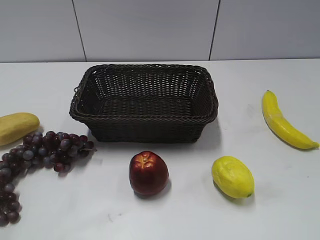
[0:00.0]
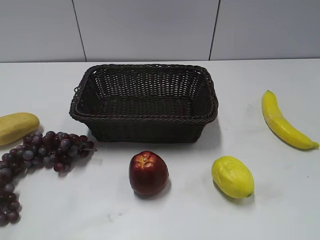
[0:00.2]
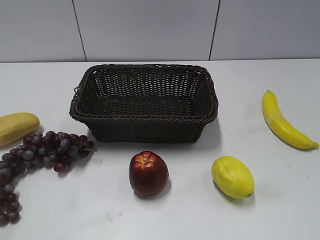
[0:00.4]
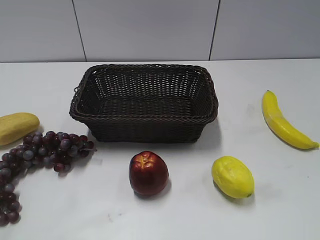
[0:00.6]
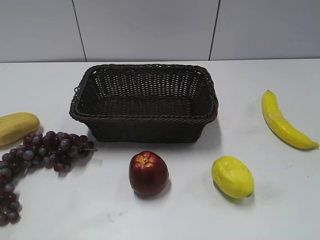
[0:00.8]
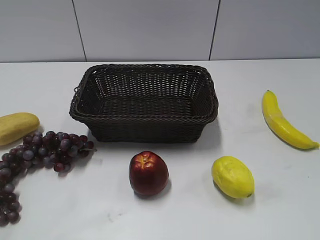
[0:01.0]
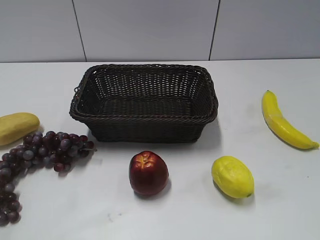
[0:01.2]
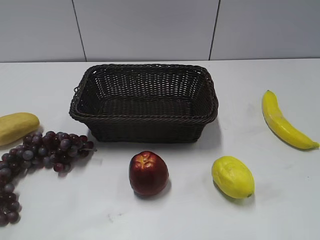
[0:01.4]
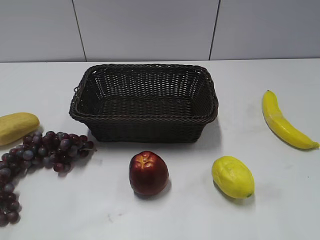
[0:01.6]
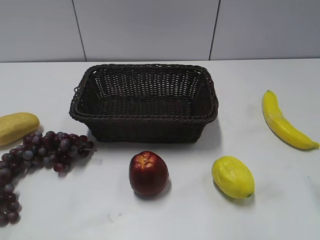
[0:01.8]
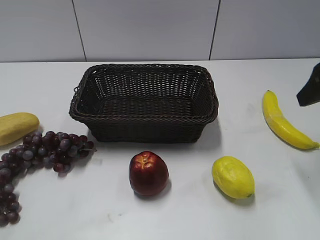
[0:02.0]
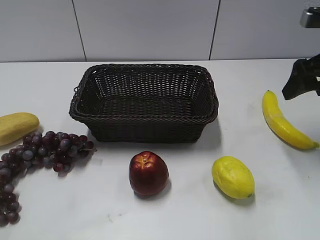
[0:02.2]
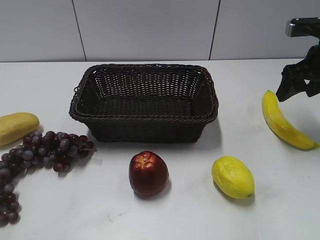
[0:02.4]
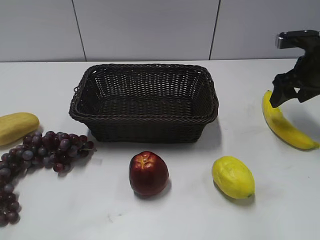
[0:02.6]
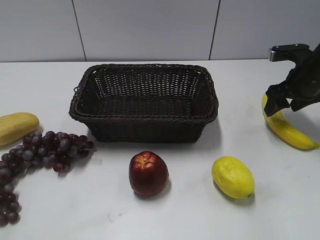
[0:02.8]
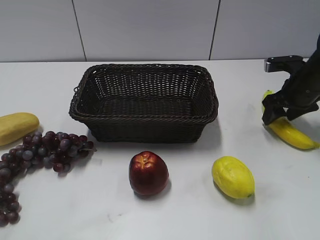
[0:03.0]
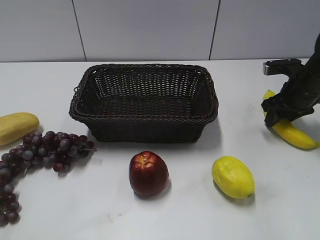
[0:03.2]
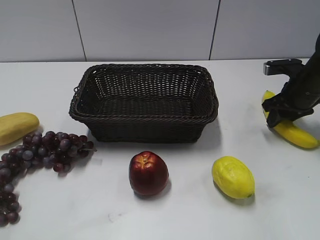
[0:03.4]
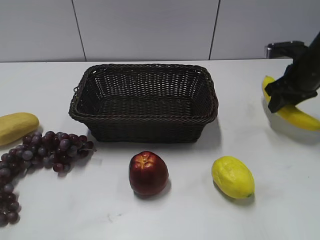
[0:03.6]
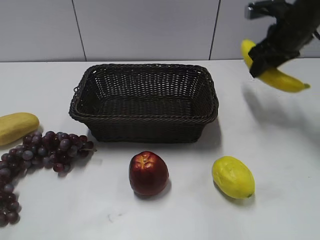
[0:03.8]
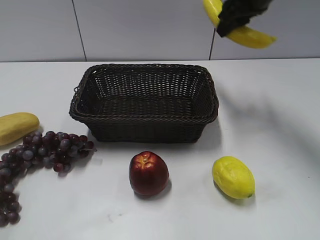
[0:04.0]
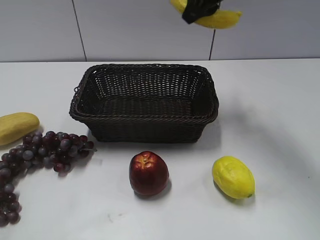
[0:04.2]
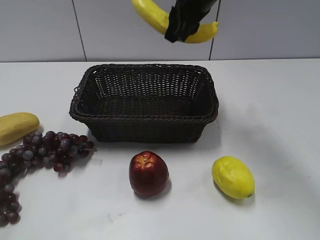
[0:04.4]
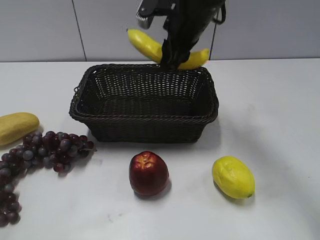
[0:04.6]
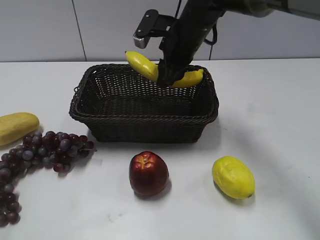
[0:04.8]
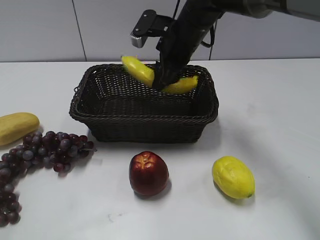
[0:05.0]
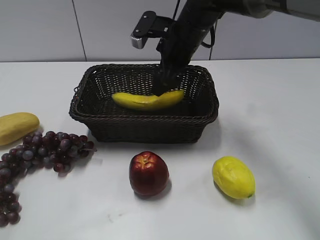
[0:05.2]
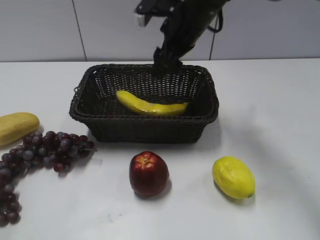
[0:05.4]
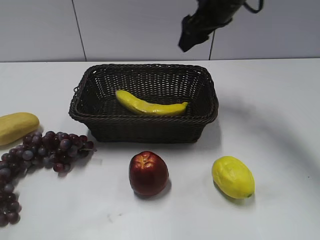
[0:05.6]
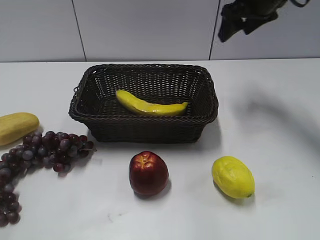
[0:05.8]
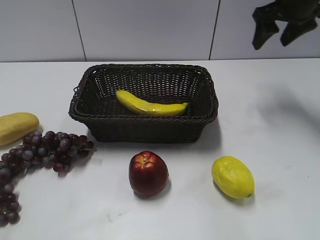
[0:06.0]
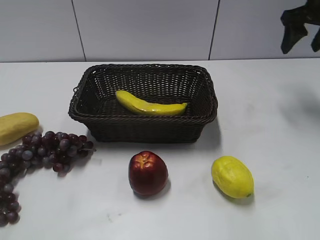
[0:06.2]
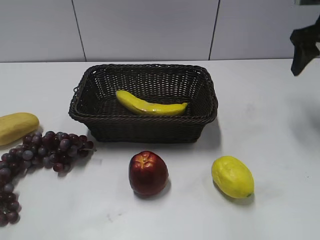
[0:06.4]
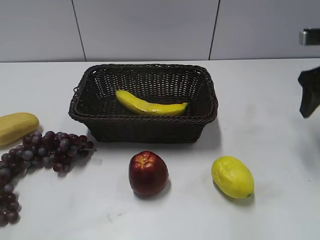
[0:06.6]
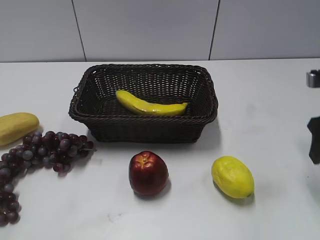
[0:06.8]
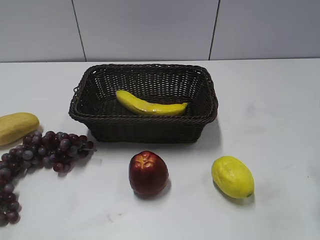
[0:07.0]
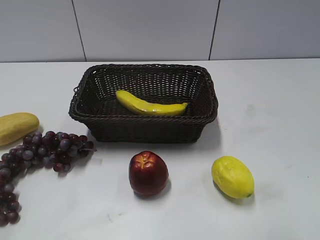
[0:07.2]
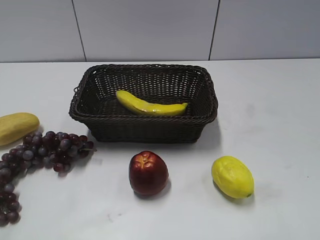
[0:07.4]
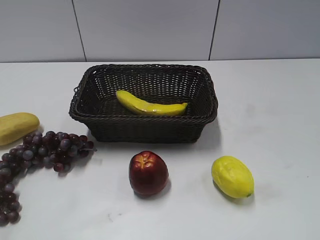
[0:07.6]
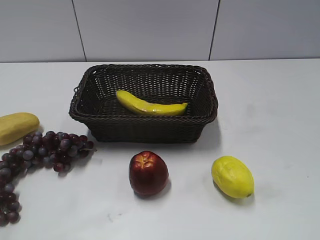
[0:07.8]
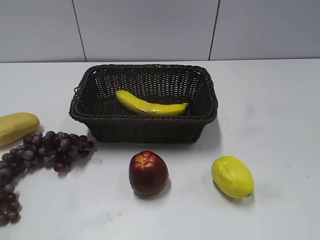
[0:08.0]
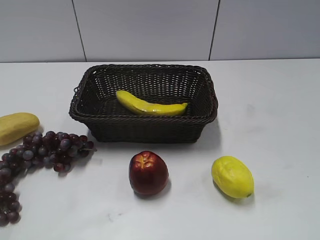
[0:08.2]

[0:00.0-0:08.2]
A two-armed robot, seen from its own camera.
Step, 0:02.0 to 0:03.2: Grasp the banana with right gripper.
Step, 0:03.4 to 0:05.2: Place the banana in the basket with right gripper.
0:01.6 to 0:03.2: The right gripper is displaced forward and downward by some 30 cm, and closes.
0:03.2 to 0:05.0: The right gripper goes about 25 cm to the left, and opens.
0:05.0 to 0:06.6: The right gripper travels to the right by approximately 25 cm, and opens.
0:06.6 to 0:08.2: The right gripper shifts about 35 cm backward.

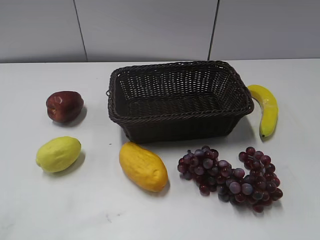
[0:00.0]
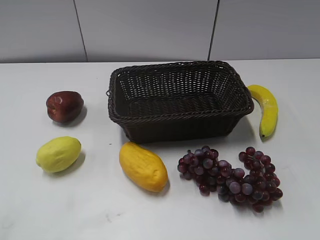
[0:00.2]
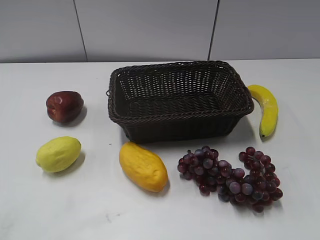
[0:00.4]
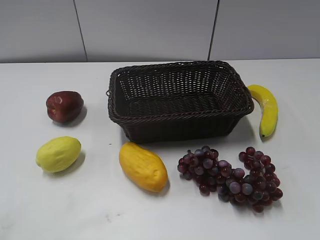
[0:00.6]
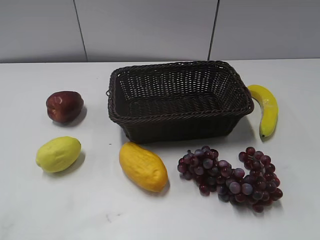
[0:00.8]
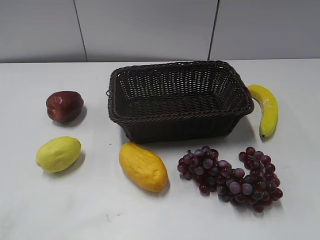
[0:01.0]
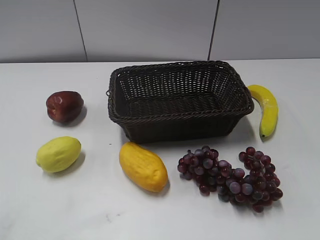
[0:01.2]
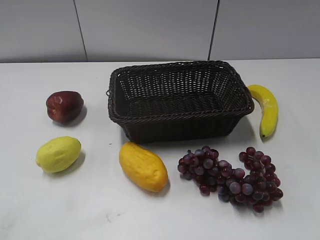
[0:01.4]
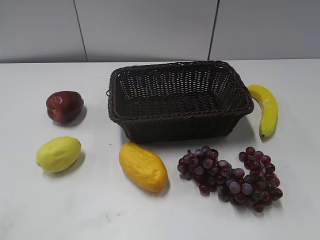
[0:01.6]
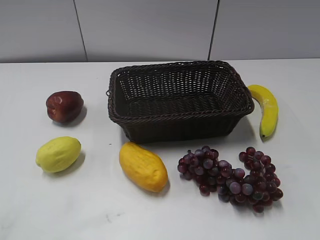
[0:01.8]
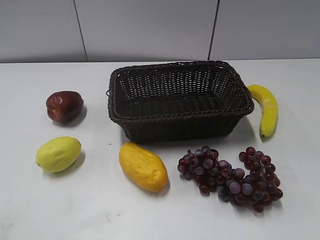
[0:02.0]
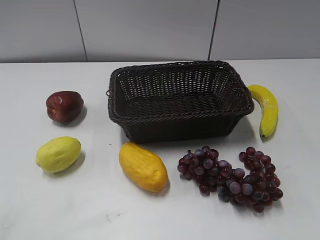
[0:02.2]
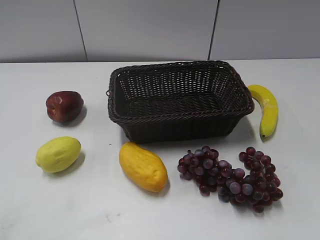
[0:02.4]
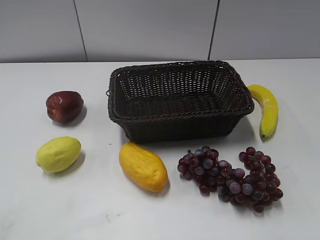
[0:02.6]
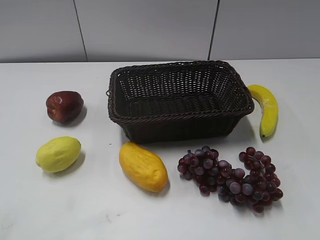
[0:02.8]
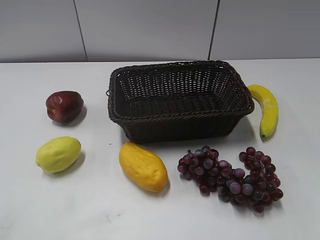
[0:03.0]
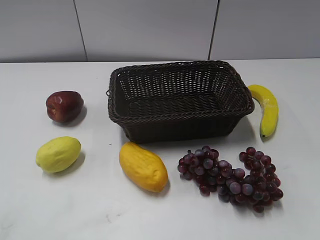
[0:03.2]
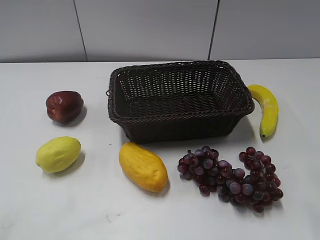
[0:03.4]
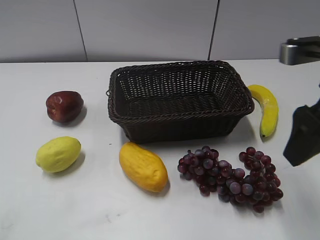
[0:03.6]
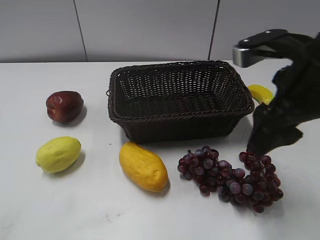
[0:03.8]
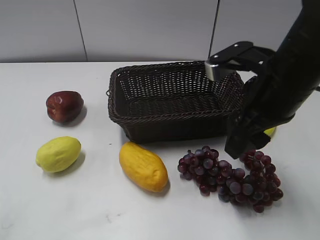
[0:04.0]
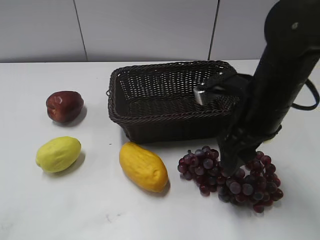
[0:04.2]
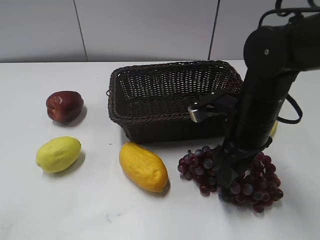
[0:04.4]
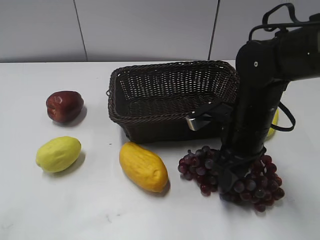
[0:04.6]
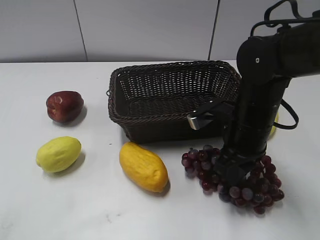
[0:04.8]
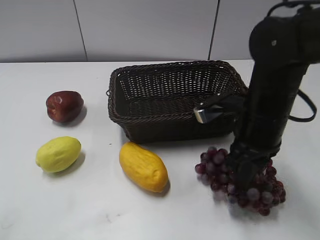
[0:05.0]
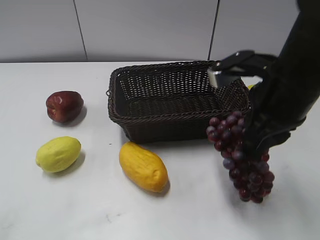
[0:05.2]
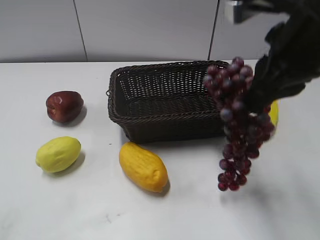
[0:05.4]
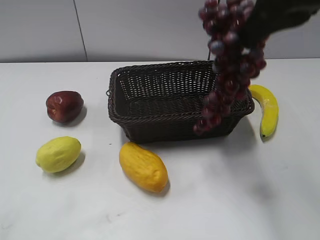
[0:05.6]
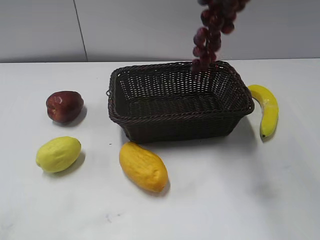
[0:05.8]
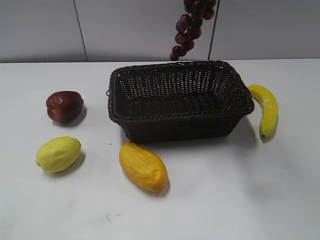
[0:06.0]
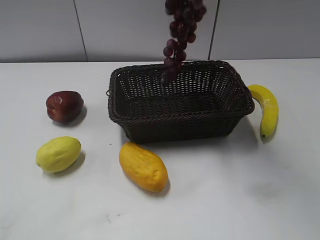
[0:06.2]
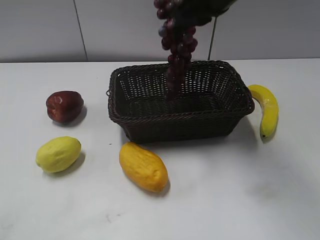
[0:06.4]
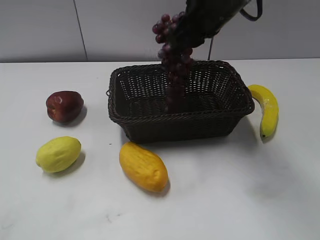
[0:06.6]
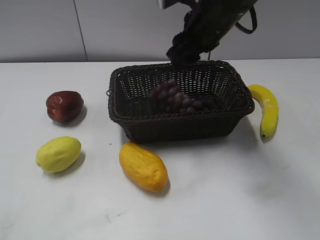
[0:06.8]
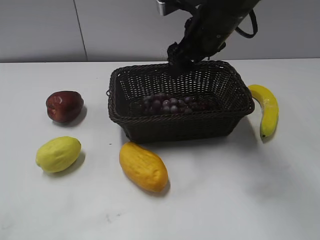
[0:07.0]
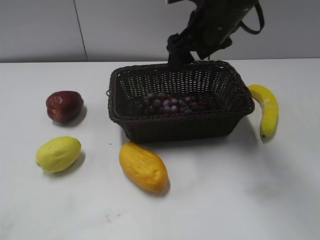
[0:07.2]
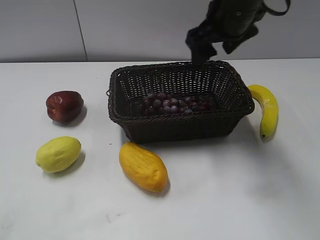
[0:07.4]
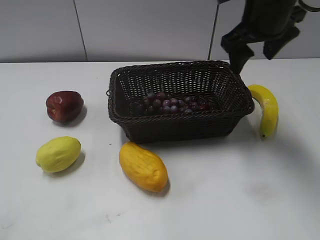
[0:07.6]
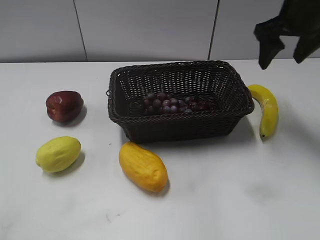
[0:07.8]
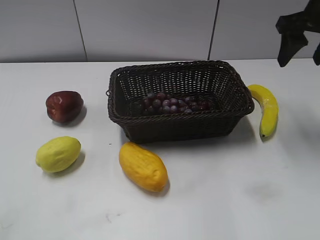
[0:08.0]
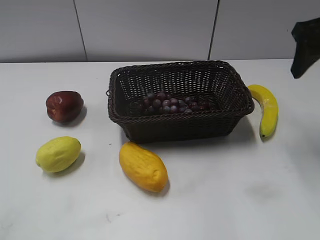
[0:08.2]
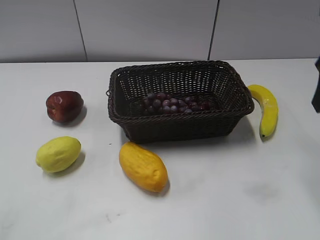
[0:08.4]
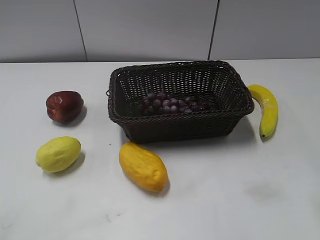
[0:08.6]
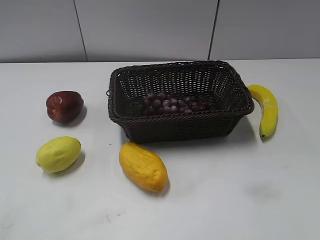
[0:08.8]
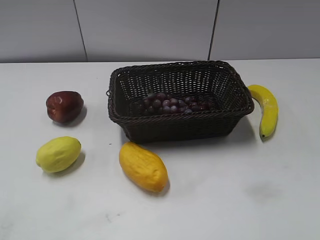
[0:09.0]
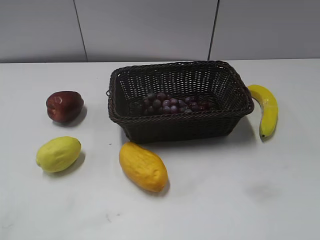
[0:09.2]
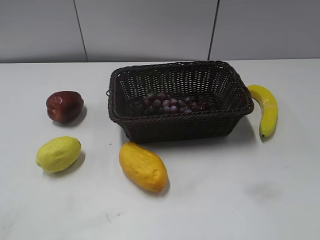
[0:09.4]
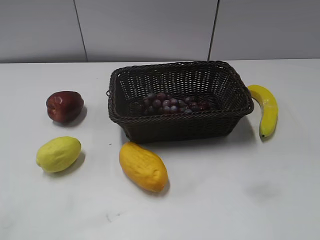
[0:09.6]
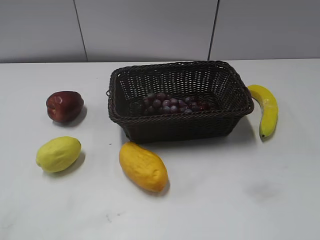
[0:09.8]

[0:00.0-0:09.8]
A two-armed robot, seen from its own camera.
Step, 0:03.6 to 0:04.6: Grasp the grape with right gripper.
Step, 0:04.8 to 0:06.8: Place the grape in the basket with right gripper.
0:02.8 to 0:04.2: The right gripper travels to the left, forward and downward by approximately 20 cm.
0:04.2 to 0:05.6: The right gripper heads upward, covering roughly 20 cm, and closes up.
0:05.6 to 0:07.0: The right gripper goes about 20 cm downward, forward and to the left, and opens its fingers.
0:07.0 to 0:08.4: The right gripper is displaced to the right and backward by approximately 20 cm.

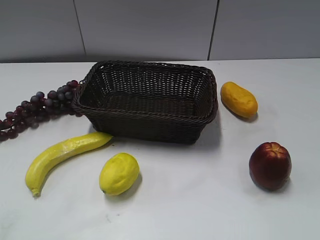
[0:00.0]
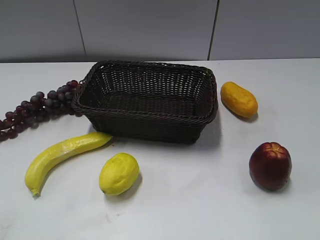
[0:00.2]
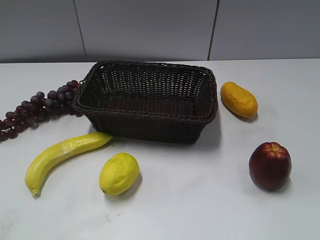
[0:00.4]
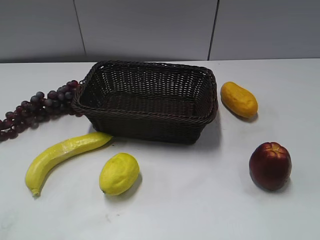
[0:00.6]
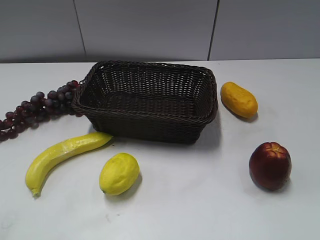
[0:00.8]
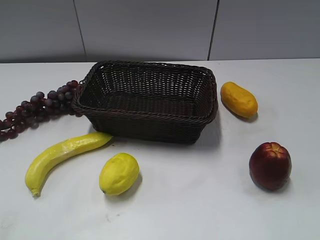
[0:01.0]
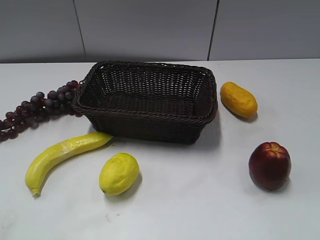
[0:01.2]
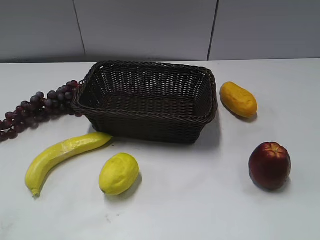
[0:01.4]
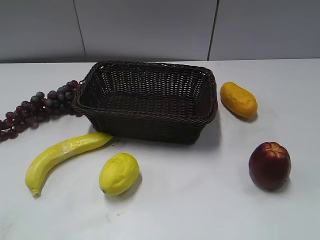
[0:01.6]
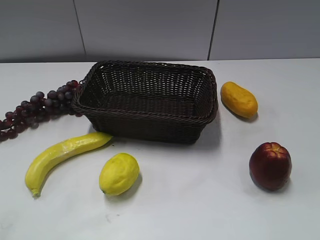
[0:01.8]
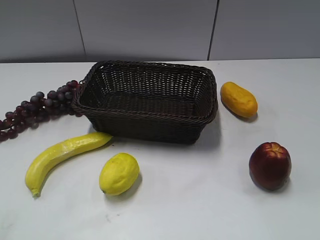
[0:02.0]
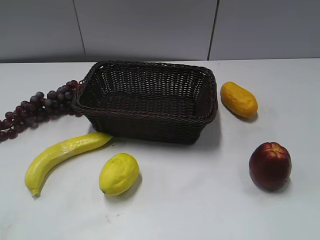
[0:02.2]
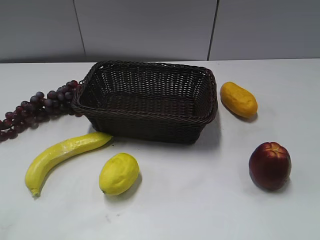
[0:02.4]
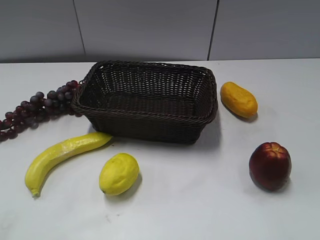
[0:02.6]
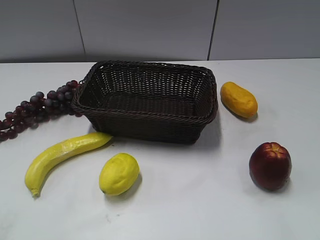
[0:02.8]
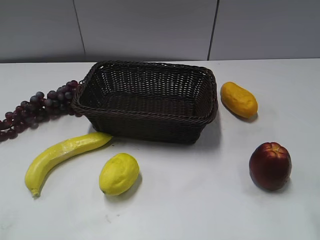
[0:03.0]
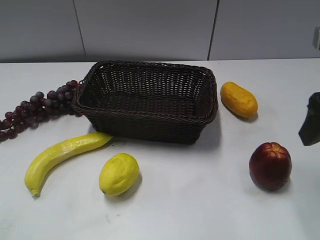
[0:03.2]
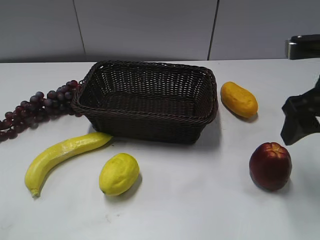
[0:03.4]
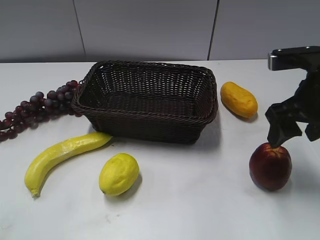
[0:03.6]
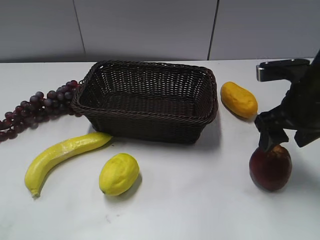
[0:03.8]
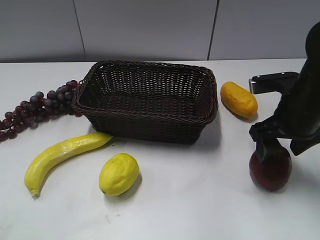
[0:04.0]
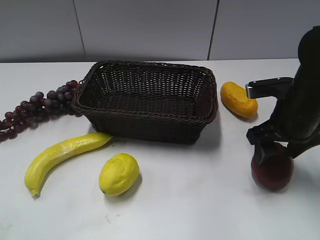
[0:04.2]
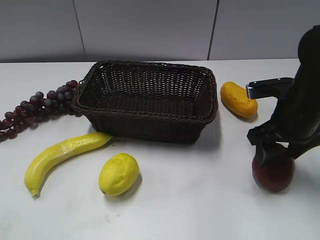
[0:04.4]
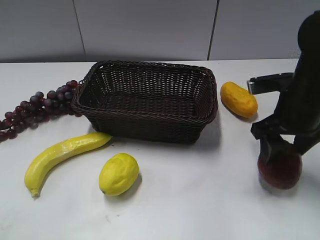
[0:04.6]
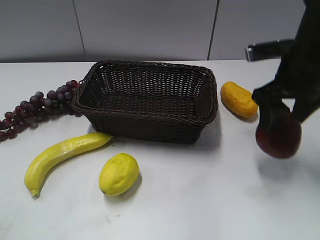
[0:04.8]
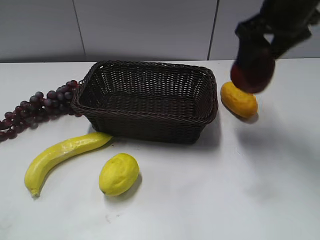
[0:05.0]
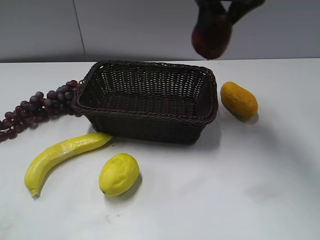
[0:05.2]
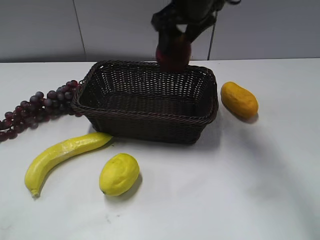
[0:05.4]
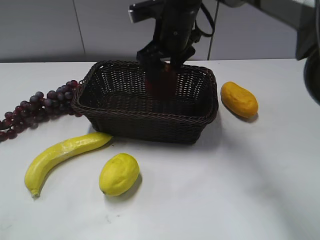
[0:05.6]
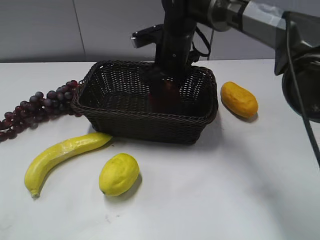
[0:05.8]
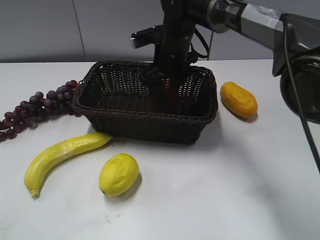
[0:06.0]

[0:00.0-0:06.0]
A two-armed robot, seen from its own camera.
Step, 0:03.2 to 0:04.2: Grasp the apple with right gripper.
0:03.0 to 0:04.4: The right gripper travels downward and forward by roughly 20 cm, and closes up.
0:04.4 to 0:06.0: The right gripper shifts roughly 25 cm to the left and forward.
